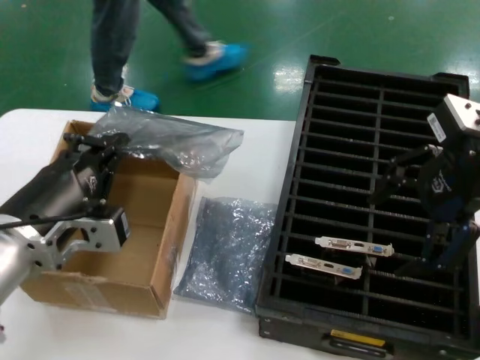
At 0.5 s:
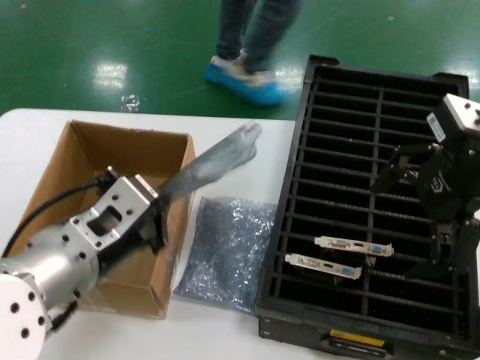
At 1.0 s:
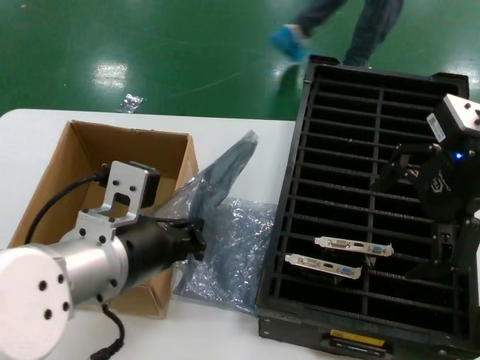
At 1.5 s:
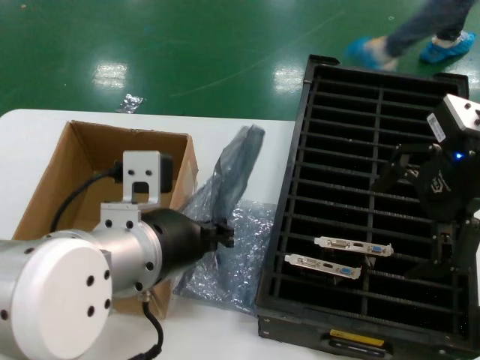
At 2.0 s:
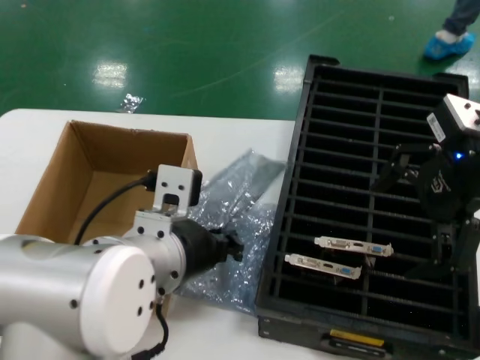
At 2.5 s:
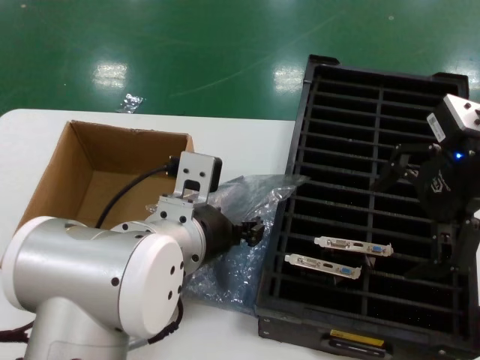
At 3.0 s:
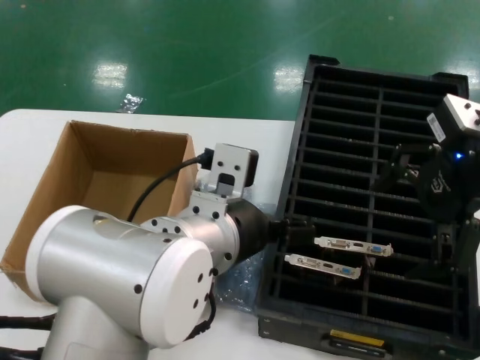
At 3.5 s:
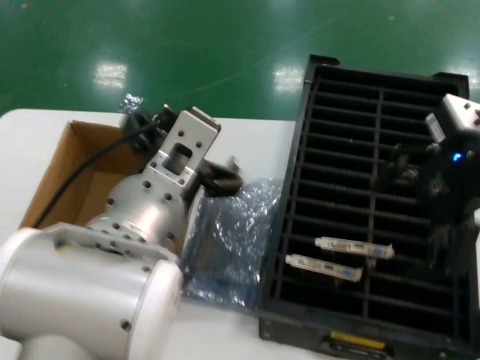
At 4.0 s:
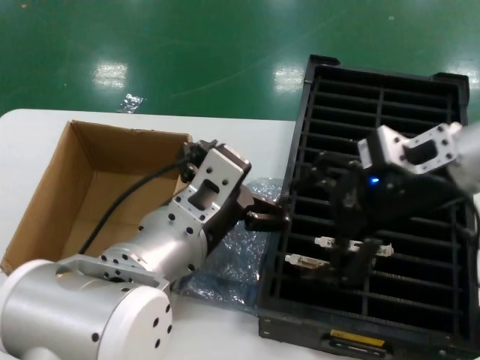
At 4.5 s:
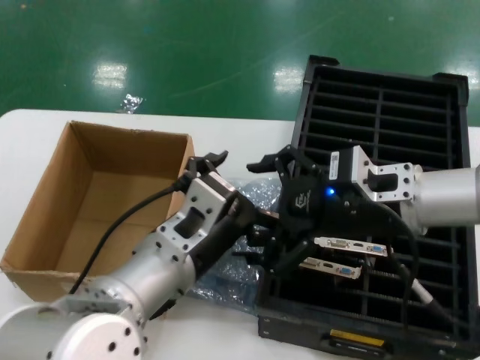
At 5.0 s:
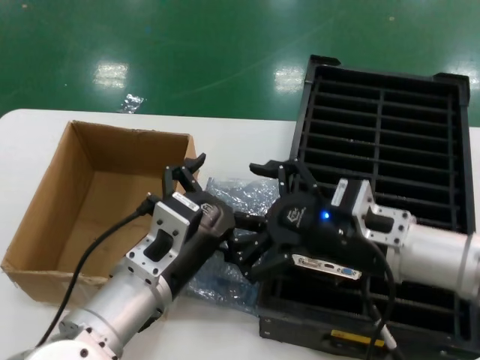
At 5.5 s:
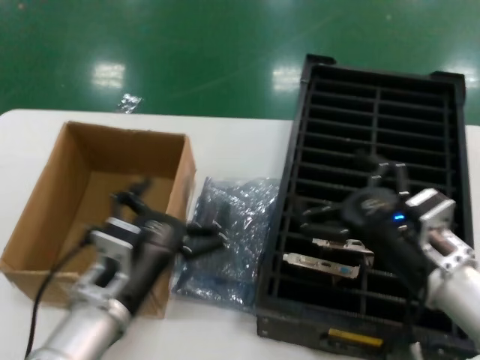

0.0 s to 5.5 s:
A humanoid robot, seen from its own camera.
Task of the whole recording: take out graphics card from box remove packaging put into black container.
Step, 0.0 to 3.0 s: Place the down the bag.
0.0 to 2.0 s: The left hand heads to the right, covering about 15 cm.
3.5 to 5.5 s: The right hand is displaced downward by some 25 cm. Meanwhile the left hand moves downward and to the left, roughly 15 cm.
